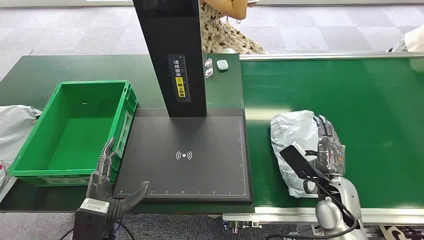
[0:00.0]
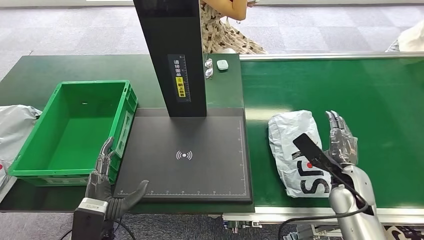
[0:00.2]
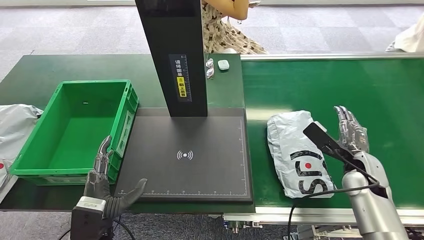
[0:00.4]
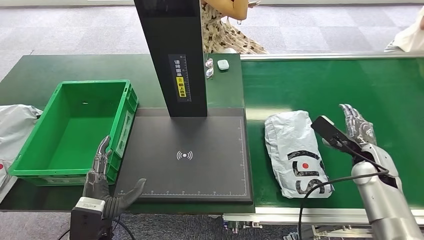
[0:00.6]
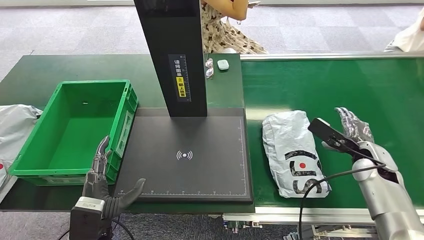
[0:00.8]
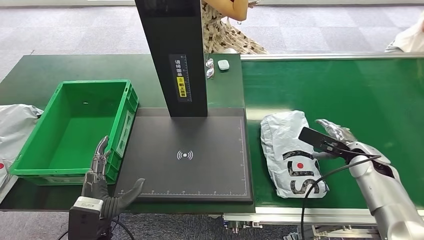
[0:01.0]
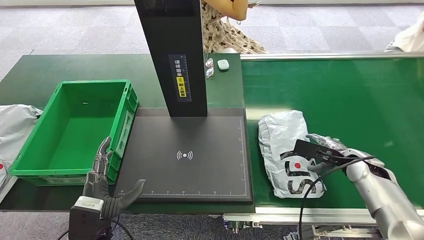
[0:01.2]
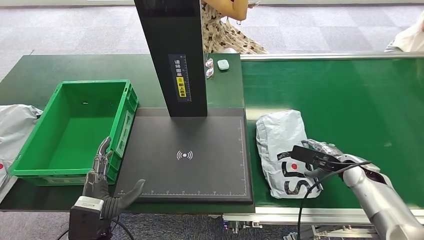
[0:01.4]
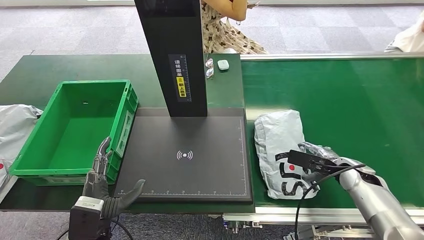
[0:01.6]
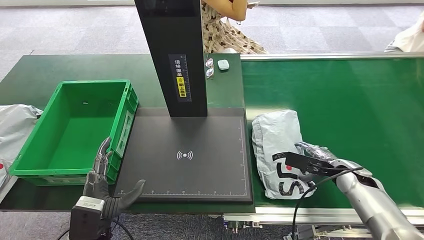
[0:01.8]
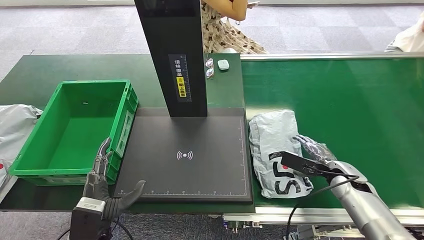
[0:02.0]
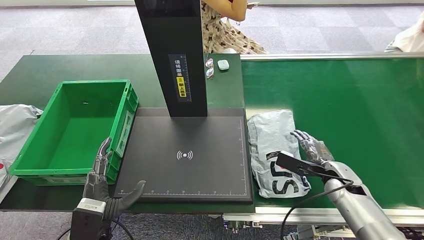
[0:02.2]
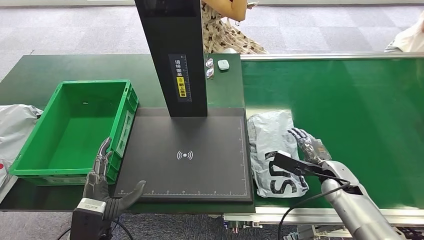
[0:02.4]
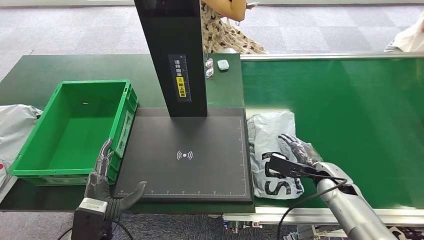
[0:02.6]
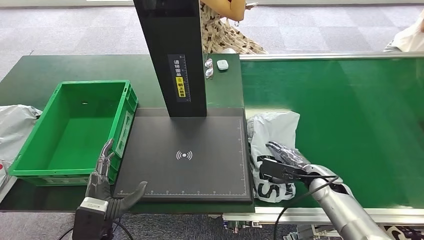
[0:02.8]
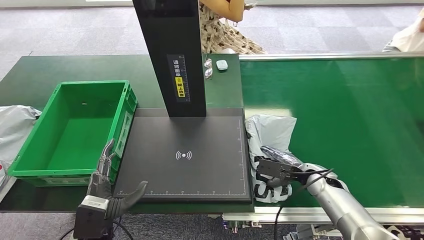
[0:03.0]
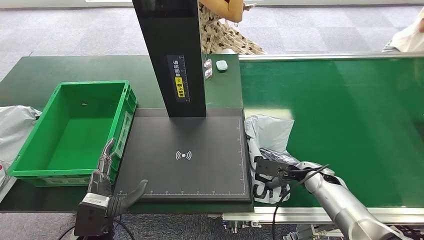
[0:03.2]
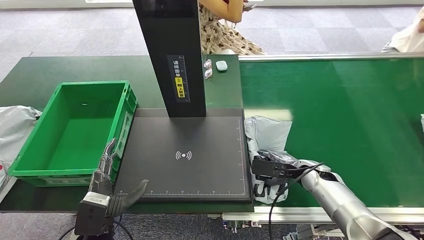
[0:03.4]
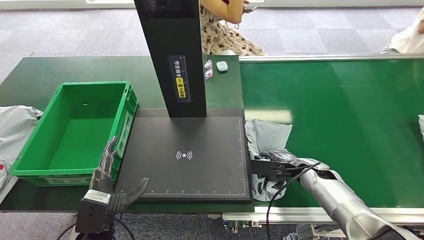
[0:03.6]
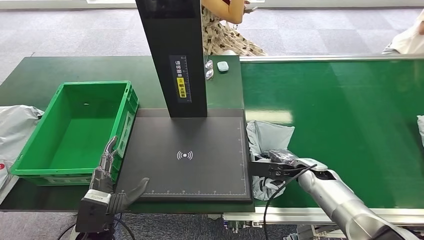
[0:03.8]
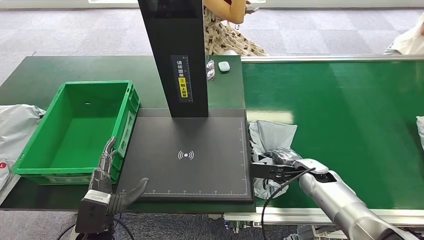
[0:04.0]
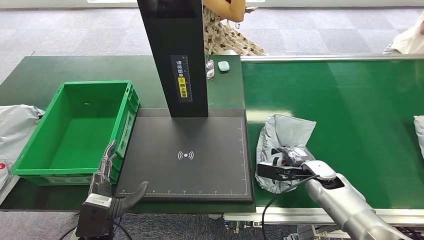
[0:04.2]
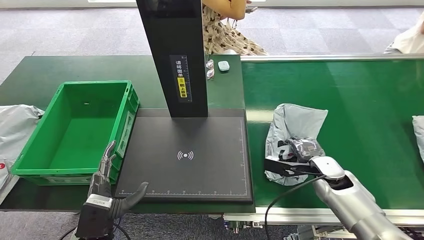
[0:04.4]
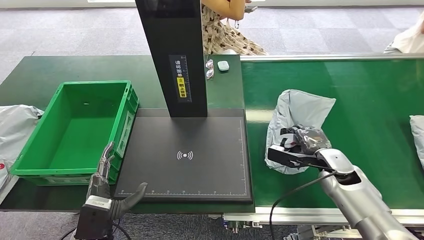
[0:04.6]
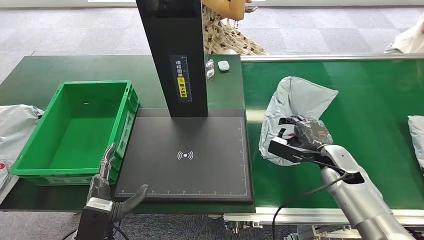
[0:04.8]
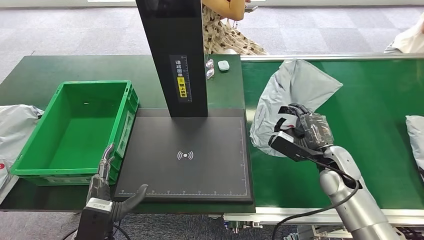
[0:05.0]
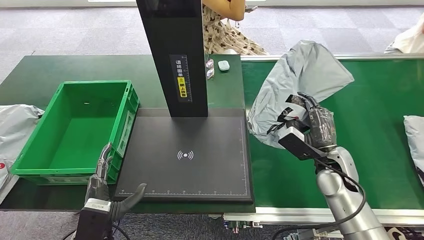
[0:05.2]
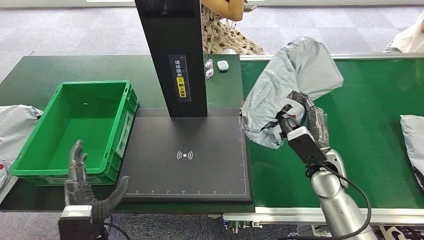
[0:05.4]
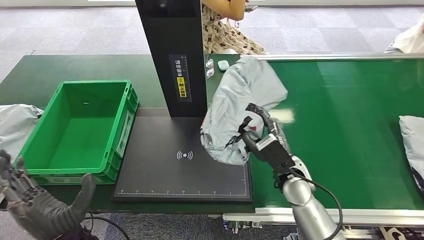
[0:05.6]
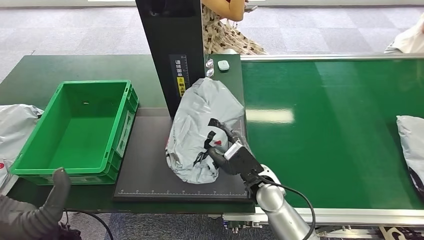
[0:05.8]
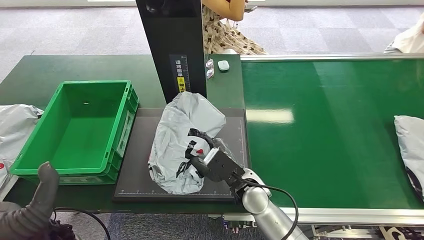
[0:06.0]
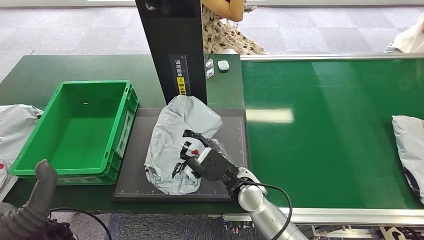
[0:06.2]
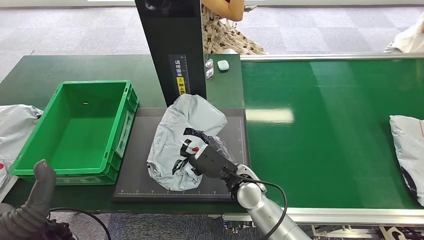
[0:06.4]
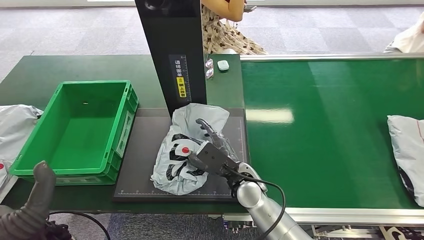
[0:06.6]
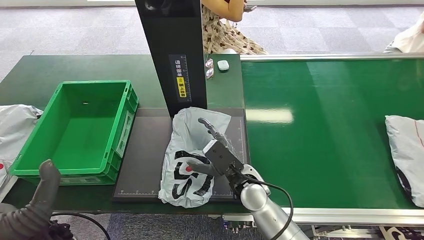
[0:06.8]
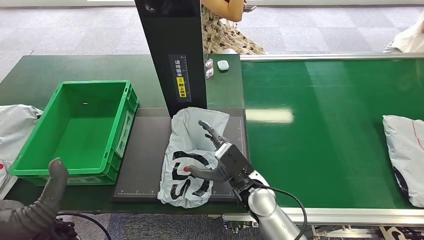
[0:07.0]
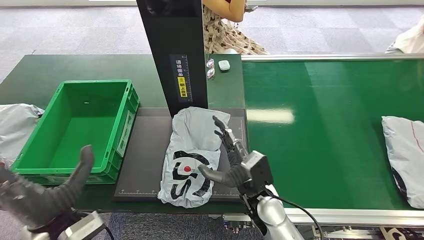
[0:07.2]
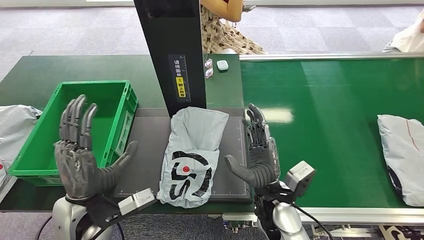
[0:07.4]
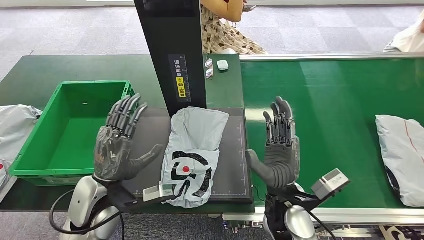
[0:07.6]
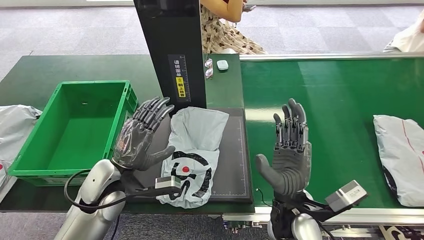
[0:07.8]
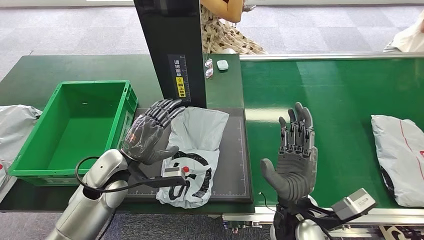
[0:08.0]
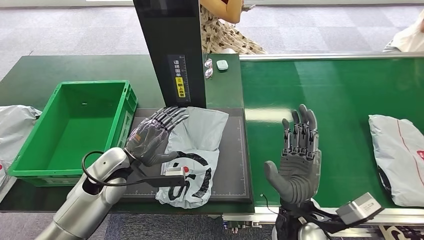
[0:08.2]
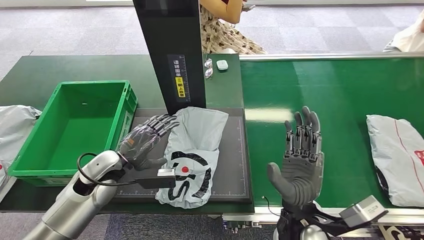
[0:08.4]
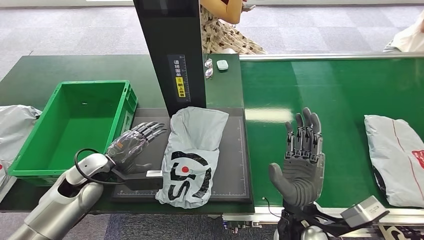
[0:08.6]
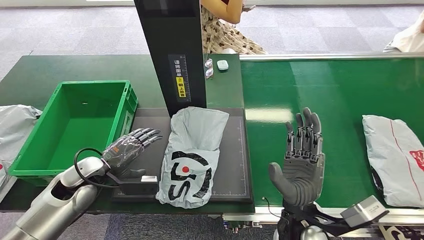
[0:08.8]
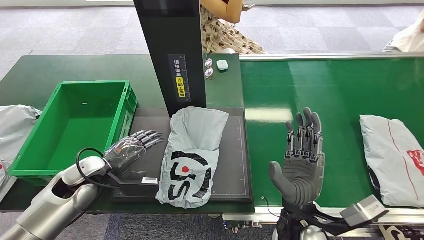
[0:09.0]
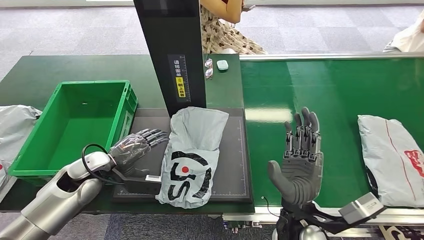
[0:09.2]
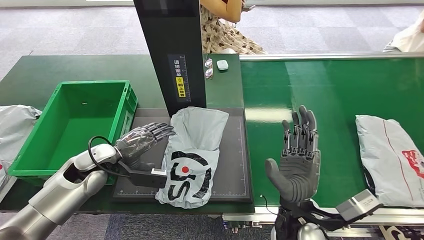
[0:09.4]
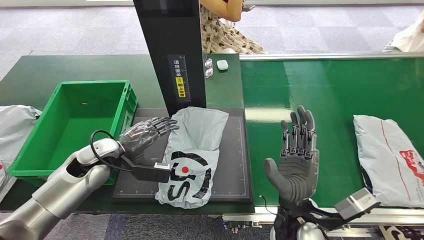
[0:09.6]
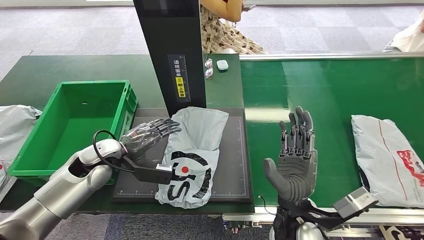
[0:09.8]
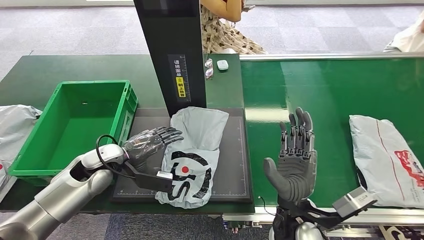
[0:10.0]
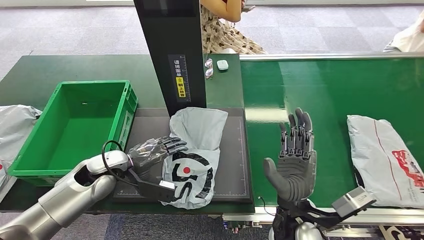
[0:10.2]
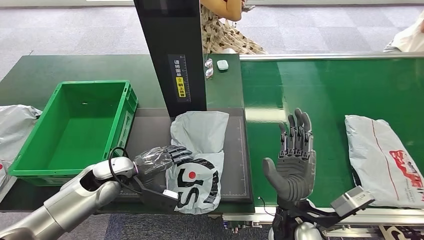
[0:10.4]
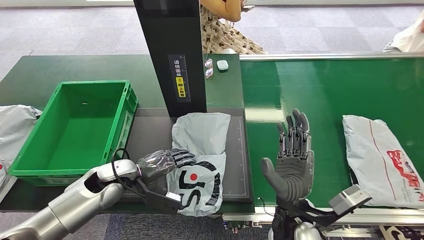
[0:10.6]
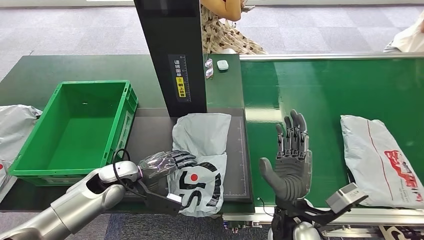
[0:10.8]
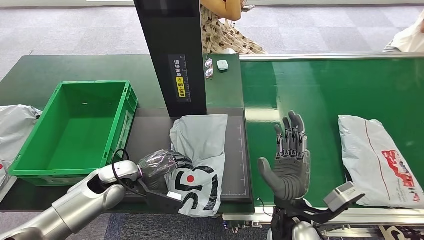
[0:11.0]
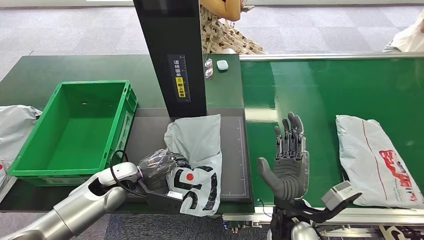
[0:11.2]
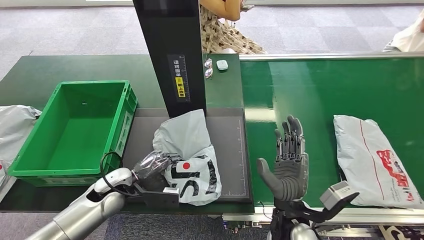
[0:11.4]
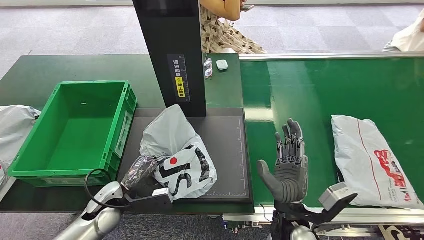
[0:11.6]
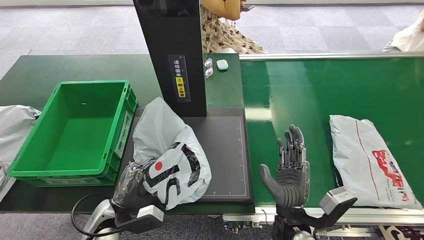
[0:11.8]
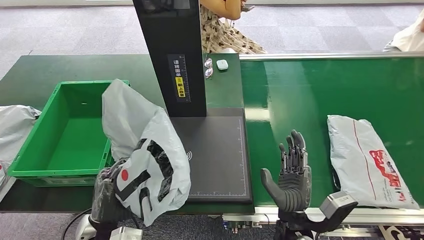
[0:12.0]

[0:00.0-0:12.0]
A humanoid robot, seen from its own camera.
Step, 0.0 to 4.6 s: Pick up the package from the conveyor belt.
Step, 4.8 to 8.0 s: Place the package onto the inbound machine.
1.6 to 3.0 s: The right hand travels to the left by about 10 cm.
7.6 to 9.0 s: The left hand shifts approximately 15 cm to the left, forward and downward.
9.0 to 10.4 s: The left hand travels to the right by roughly 5 cm.

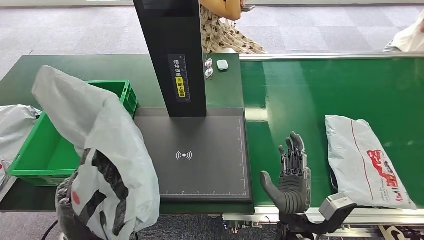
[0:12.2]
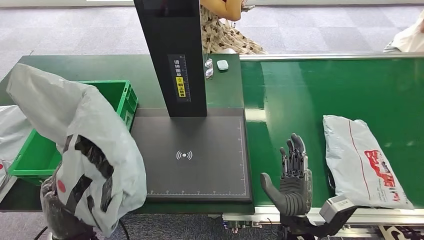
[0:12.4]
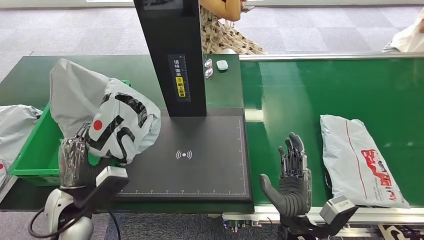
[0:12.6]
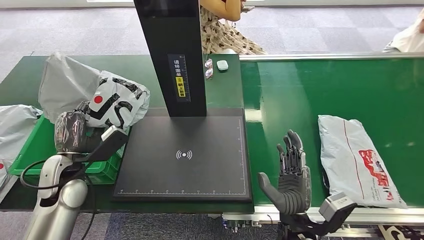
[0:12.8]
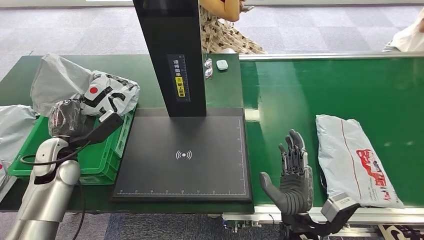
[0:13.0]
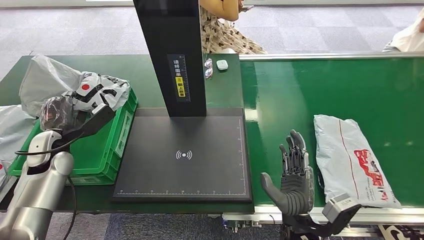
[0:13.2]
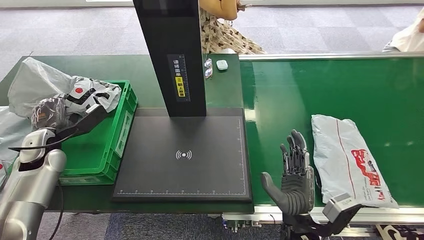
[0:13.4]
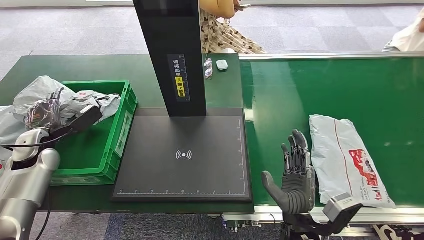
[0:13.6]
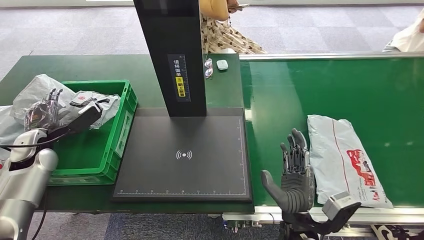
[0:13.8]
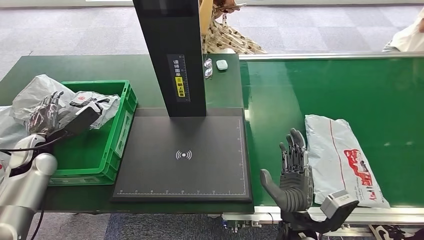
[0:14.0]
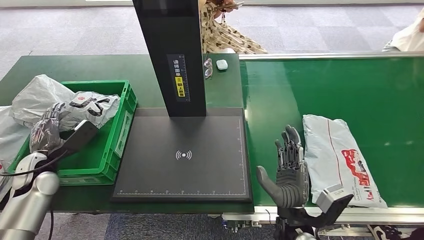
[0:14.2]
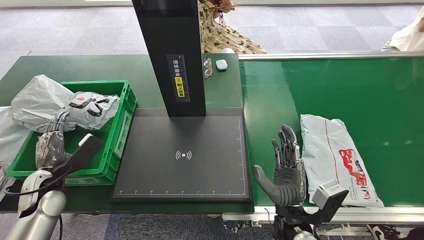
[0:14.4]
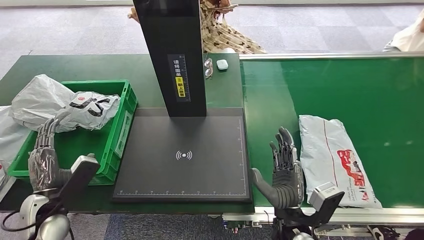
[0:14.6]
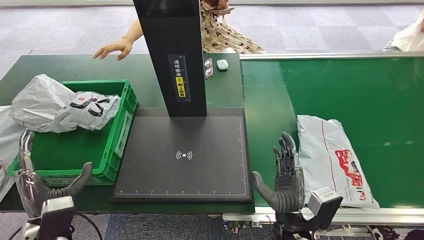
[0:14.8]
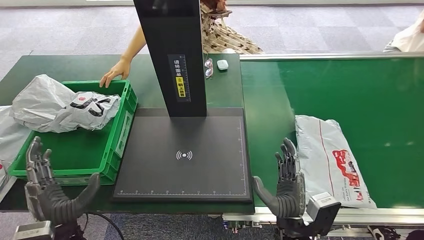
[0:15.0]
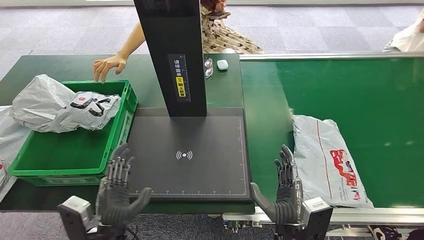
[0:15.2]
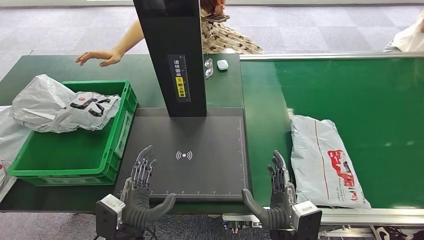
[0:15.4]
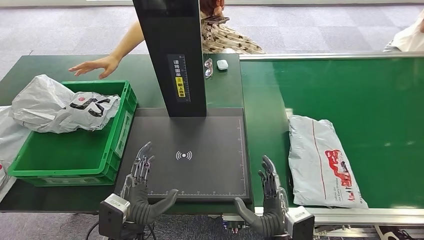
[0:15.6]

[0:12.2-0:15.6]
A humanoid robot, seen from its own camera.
Step, 13.4 to 15.6 s: Place the package into the parcel locker.

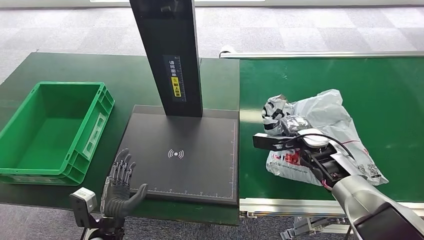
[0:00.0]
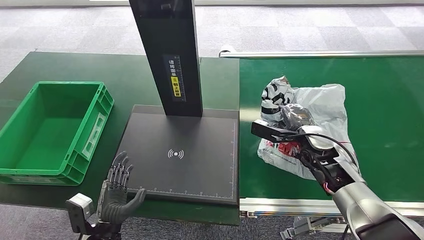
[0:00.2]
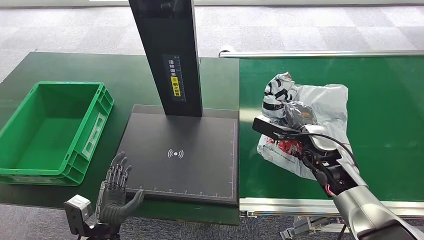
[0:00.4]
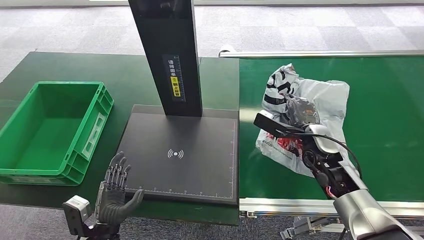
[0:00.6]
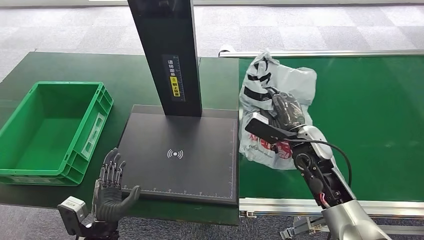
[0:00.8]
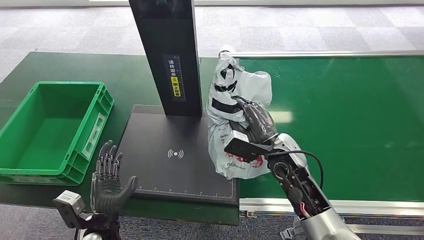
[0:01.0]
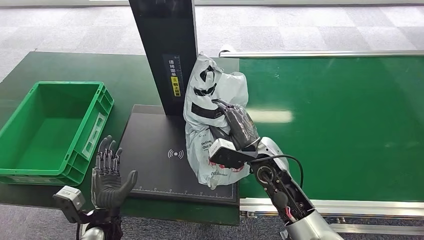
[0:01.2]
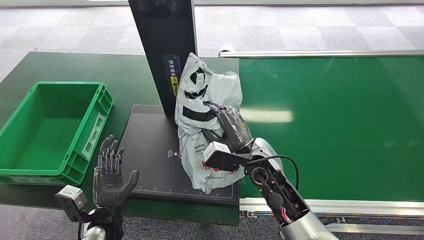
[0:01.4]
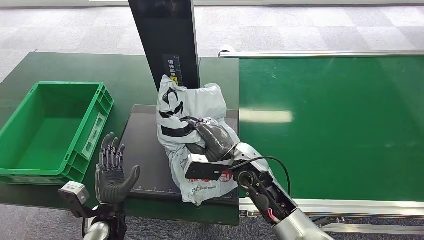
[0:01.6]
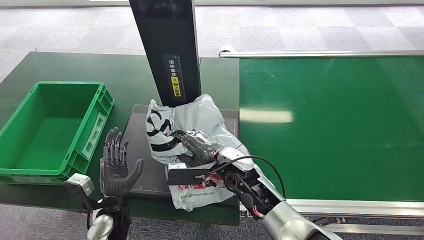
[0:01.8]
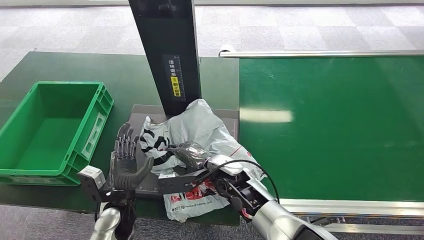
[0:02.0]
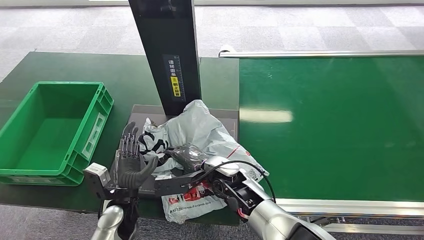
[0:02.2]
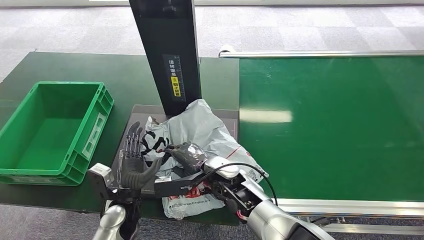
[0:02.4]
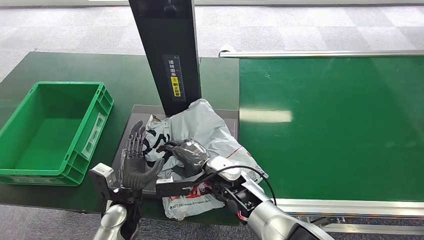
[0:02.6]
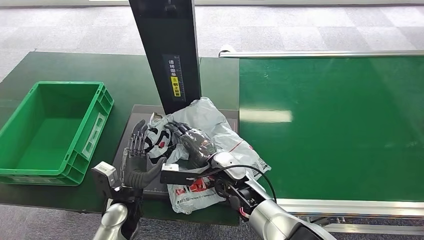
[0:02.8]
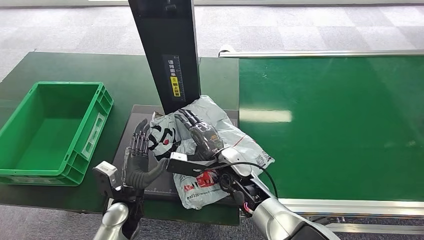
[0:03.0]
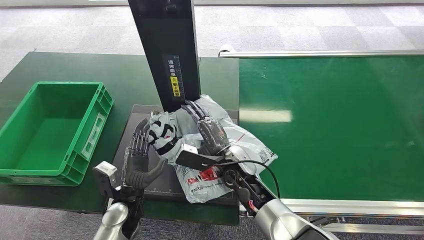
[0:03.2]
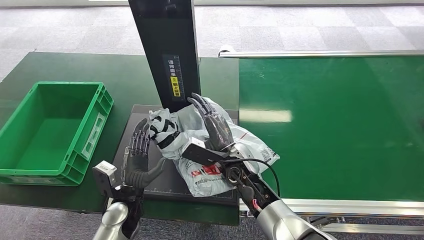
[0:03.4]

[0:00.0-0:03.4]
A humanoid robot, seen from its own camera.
1.6 to 3.4 s: The left hand changes place by some 5 cm.
